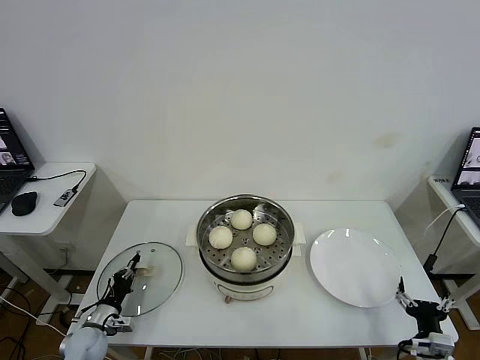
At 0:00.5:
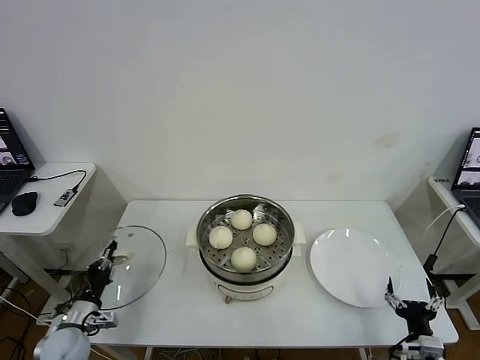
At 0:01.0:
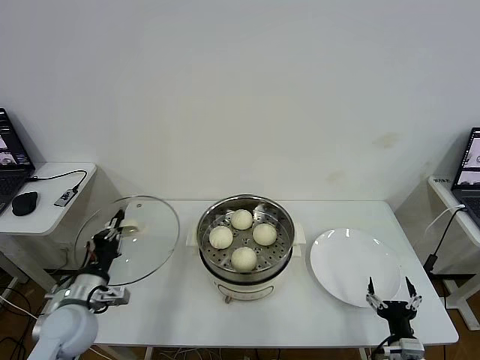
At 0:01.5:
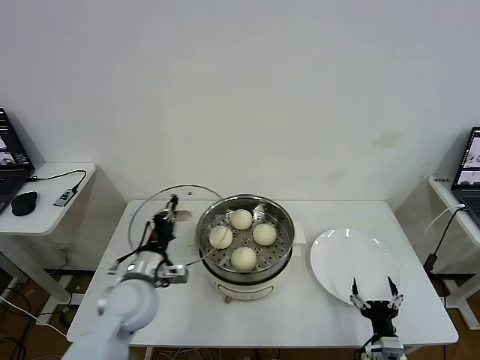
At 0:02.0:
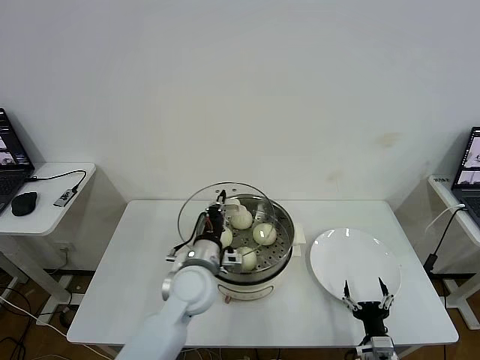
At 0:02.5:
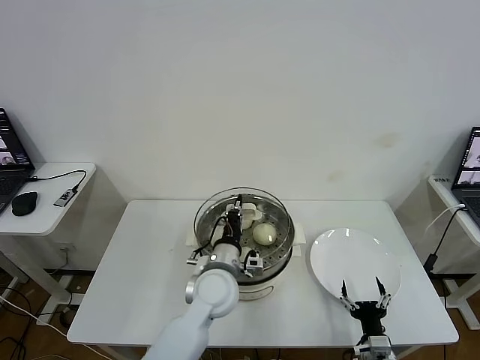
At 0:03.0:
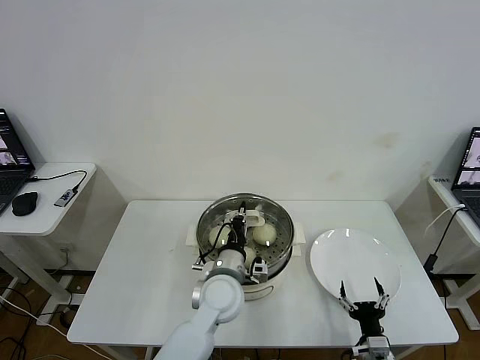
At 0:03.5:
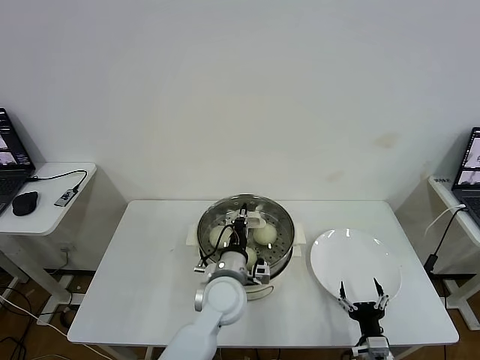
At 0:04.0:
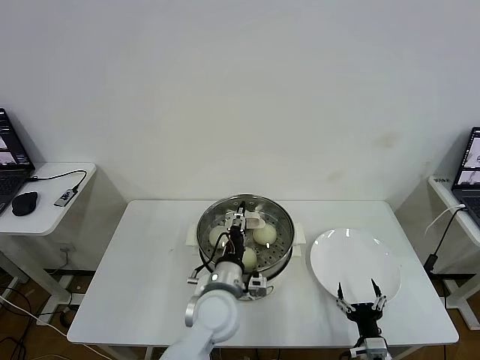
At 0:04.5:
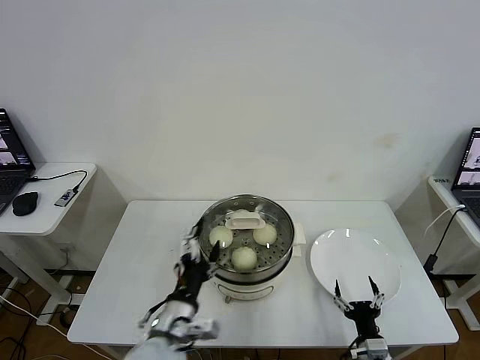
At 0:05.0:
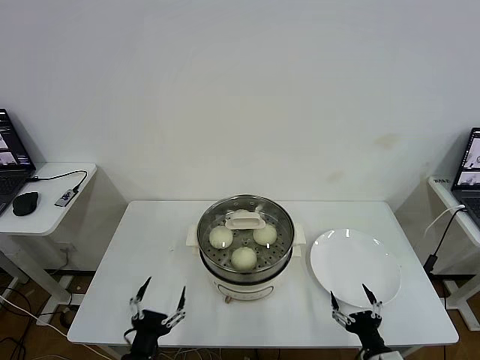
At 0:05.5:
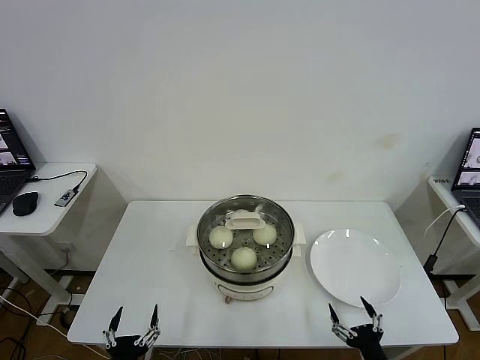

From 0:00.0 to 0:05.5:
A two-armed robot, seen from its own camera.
Task of the whole recording: take steamed baozi put them in steamer then cover it.
Step, from 0:00.5 to 0:03.5: Place the pot lid on the steamer with left gripper.
From 0:00.0 to 0:02.0: The right gripper heads to the left, covering some 10 cm. The left gripper is displaced to the right and upward by about 35 cm.
From 0:02.0 to 0:03.5: The left gripper goes approximately 5 cm to the right.
From 0:03.5 to 0:05.5: The left gripper shifts approximately 35 cm backward, to the left and downward, and opens. Meanwhile the right gripper travels backward by about 5 cm.

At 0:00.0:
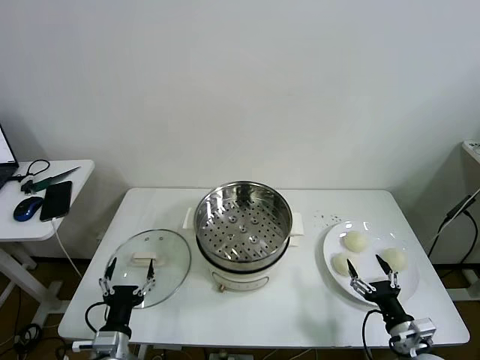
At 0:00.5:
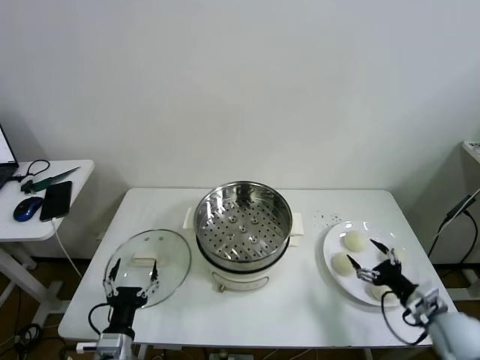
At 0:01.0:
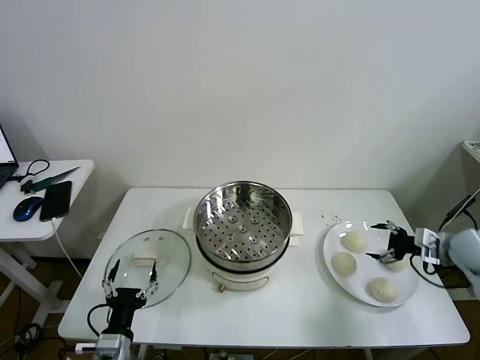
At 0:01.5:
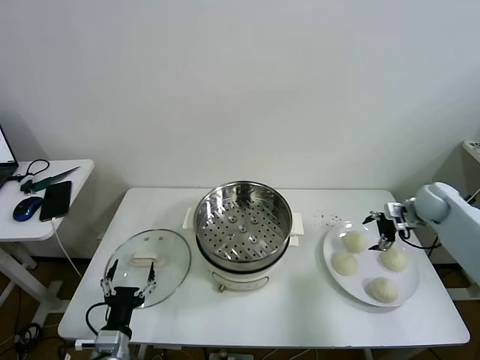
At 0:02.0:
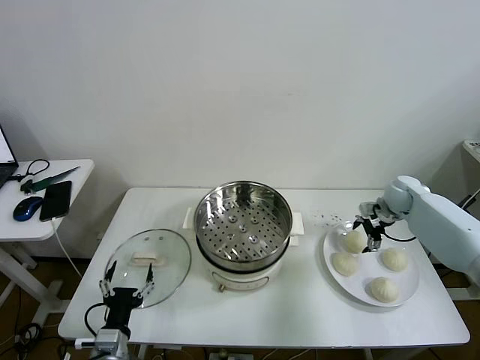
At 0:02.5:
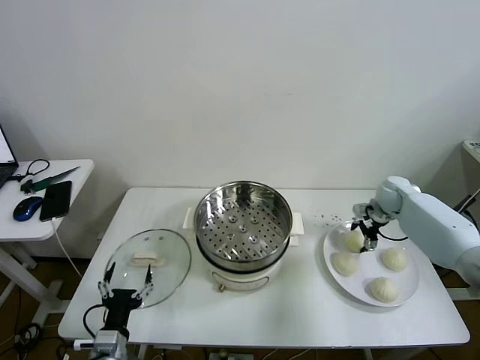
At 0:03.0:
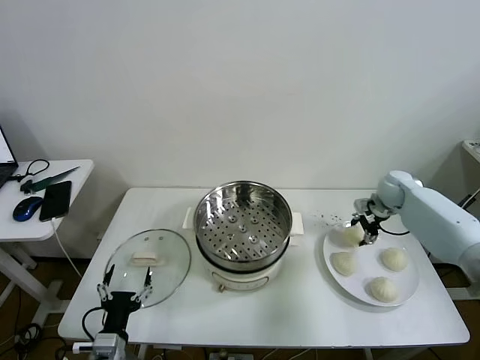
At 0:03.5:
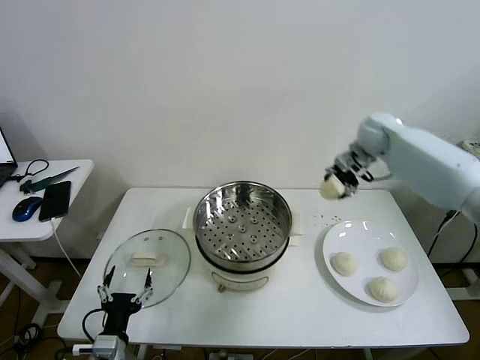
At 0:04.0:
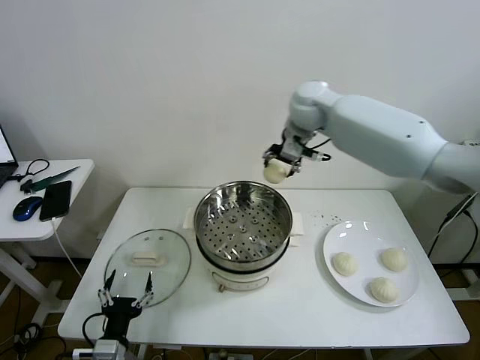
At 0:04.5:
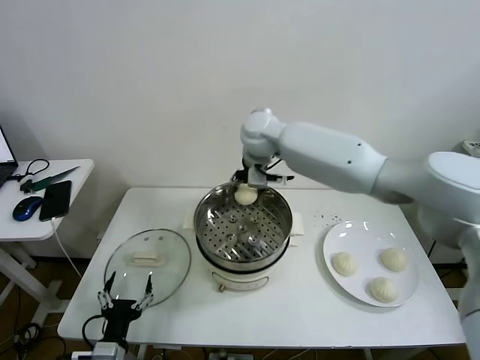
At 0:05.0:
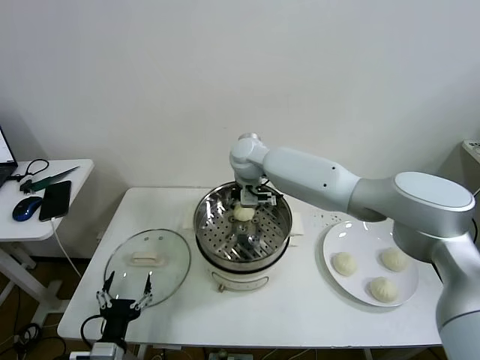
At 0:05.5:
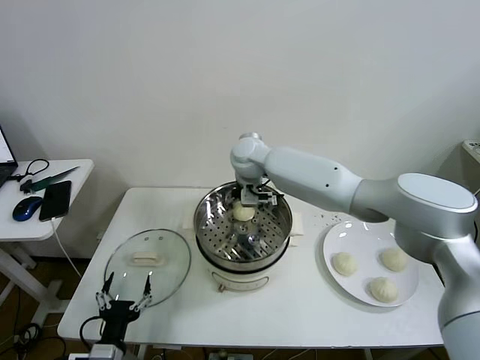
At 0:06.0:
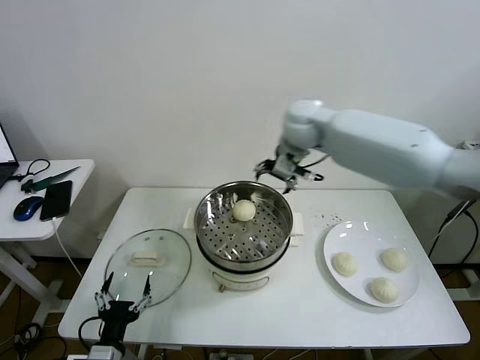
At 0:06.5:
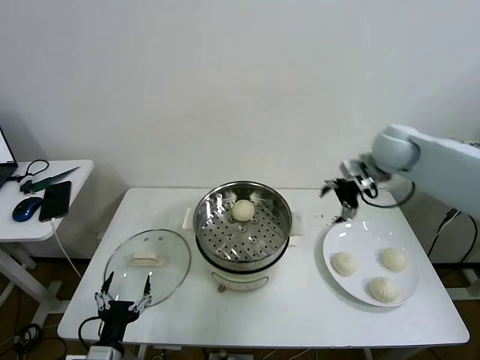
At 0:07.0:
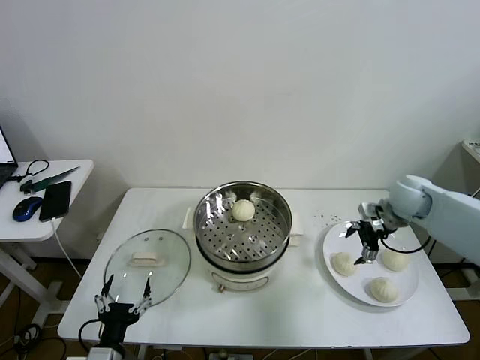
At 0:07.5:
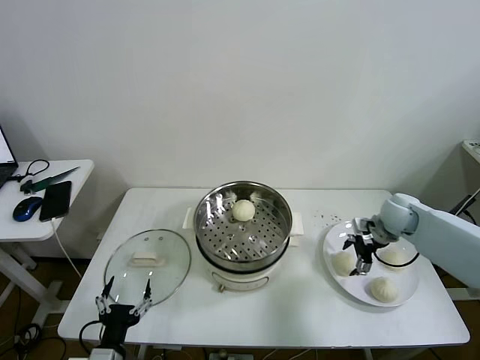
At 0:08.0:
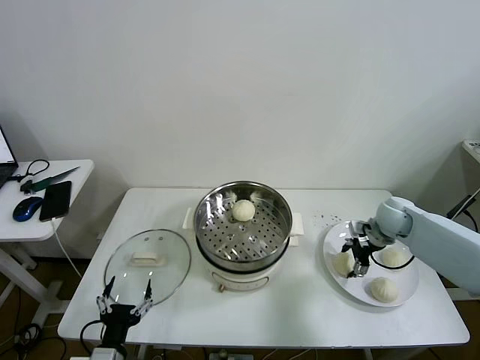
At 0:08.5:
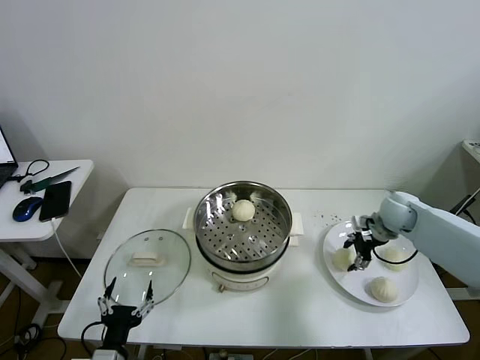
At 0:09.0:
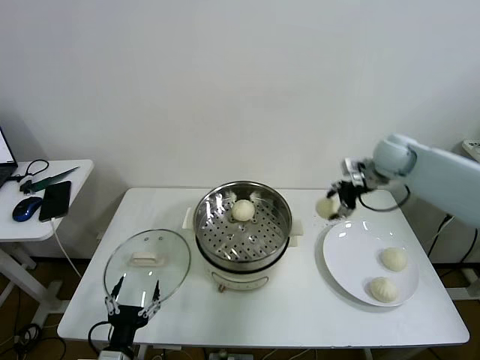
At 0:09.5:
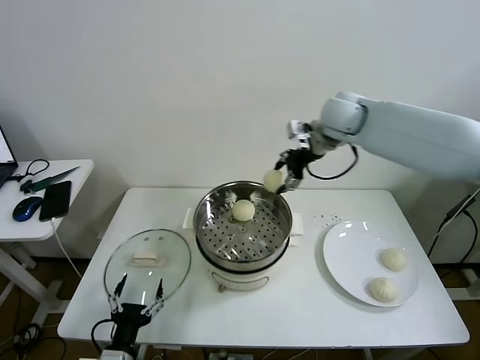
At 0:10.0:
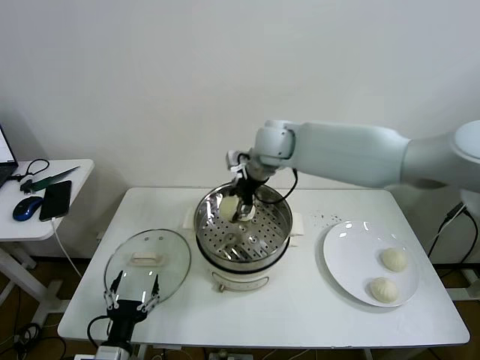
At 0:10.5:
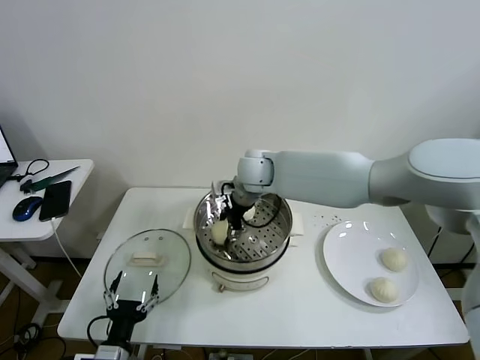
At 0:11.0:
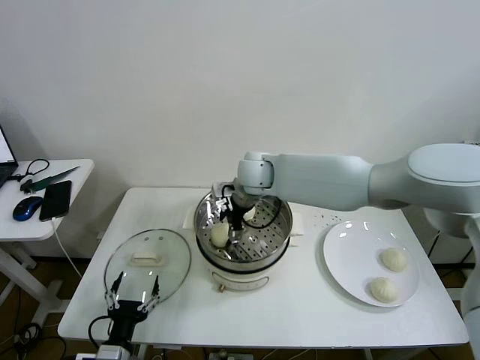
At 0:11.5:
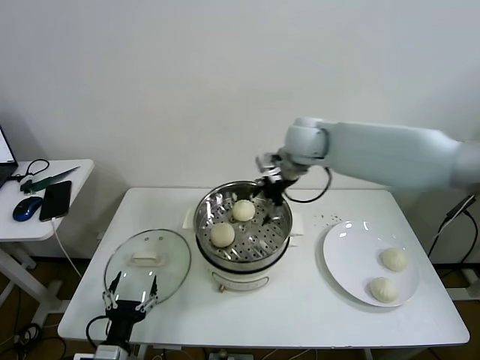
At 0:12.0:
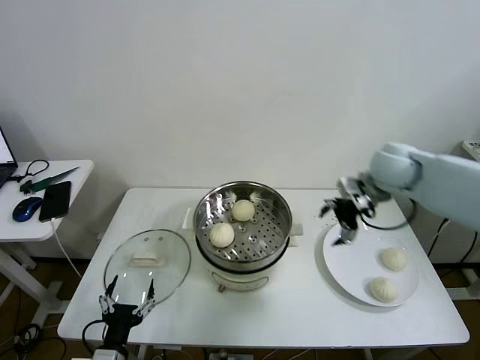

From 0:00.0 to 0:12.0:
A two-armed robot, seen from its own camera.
Task of the whole recording: take steamed baozi put them in steamer then cover it.
Step, from 0:00.0 to 0:02.5: Grasp the baozi in the plate with right gripper.
Step, from 0:03.0 to 0:05.0: Place the baozi on the steamer with right gripper.
Step, from 0:05.5 to 0:08.0: Grasp the baozi in the plate with right gripper.
Step, from 0:08.5 to 0:10.5: Place the baozi on the steamer with right gripper.
From 0:02.0 to 0:04.0: The right gripper moves to the left and upward, some 40 cm, and closes its fingers.
From 0:04.0 to 0:06.0: The right gripper travels to the right by roughly 5 cm, and opens up.
From 0:06.0 to 0:08.0: The right gripper shifts approximately 35 cm downward and to the right, and closes.
From 0:08.0 to 0:10.0: The right gripper goes approximately 40 cm to the left and upward.
From 0:10.0 to 0:12.0: The right gripper goes some 25 cm to the right, and opens its fingers.

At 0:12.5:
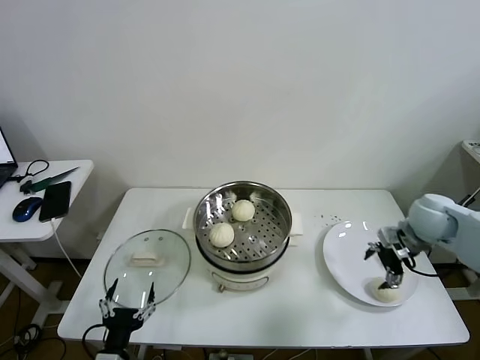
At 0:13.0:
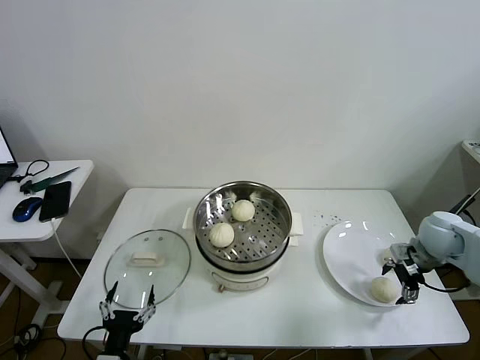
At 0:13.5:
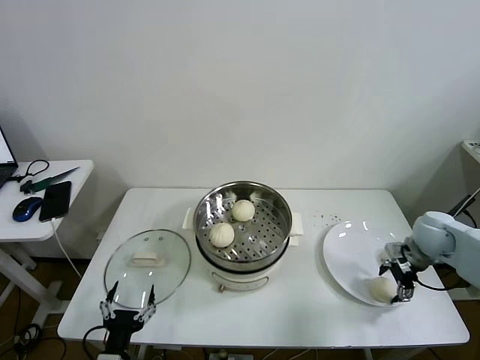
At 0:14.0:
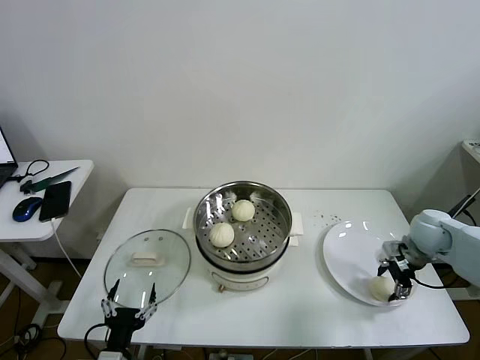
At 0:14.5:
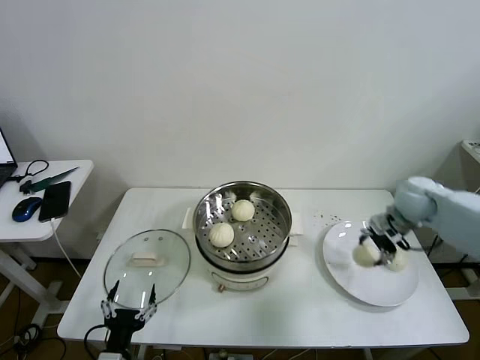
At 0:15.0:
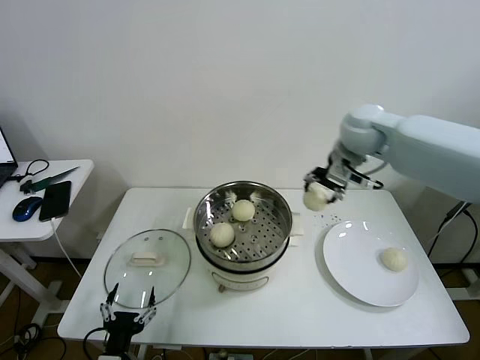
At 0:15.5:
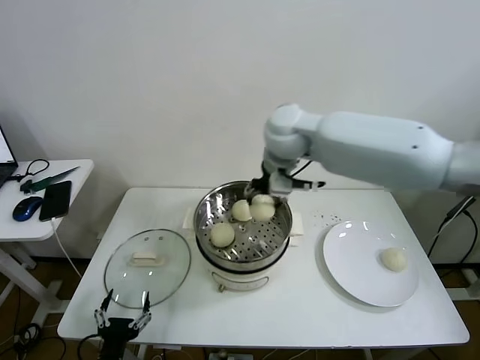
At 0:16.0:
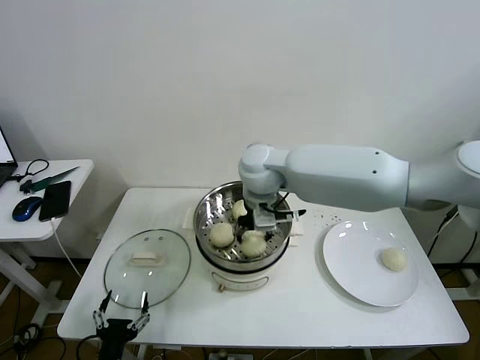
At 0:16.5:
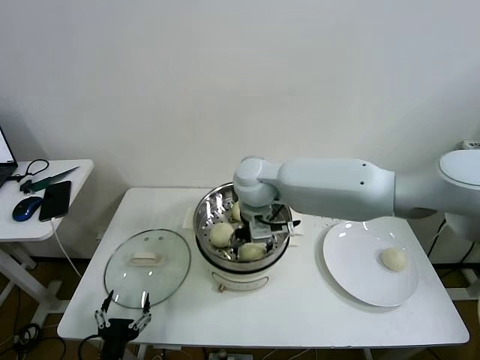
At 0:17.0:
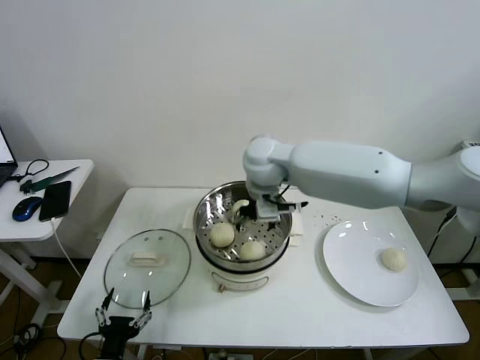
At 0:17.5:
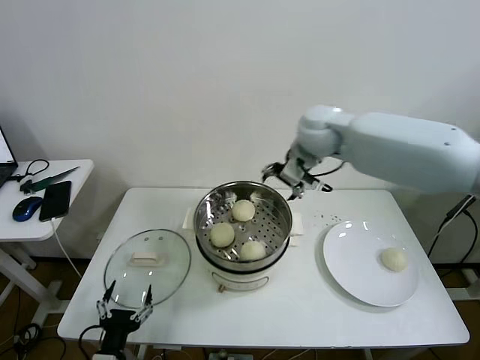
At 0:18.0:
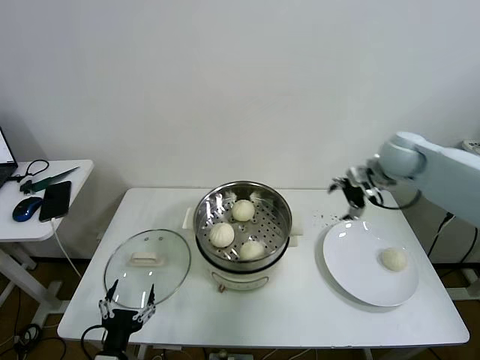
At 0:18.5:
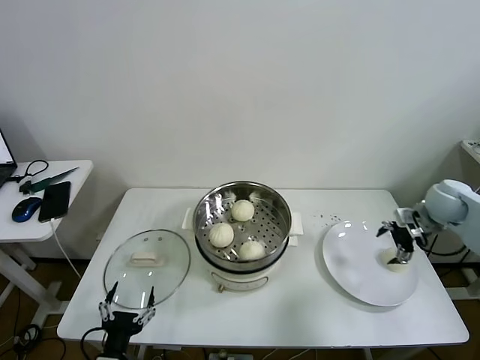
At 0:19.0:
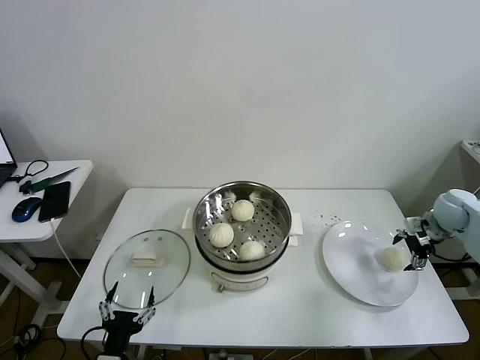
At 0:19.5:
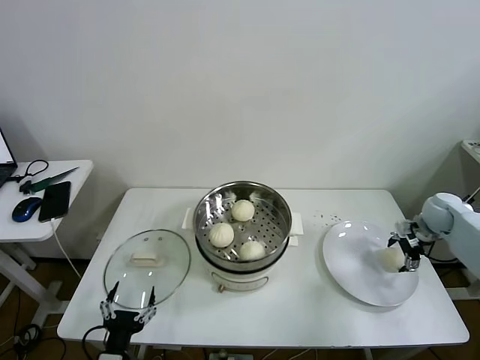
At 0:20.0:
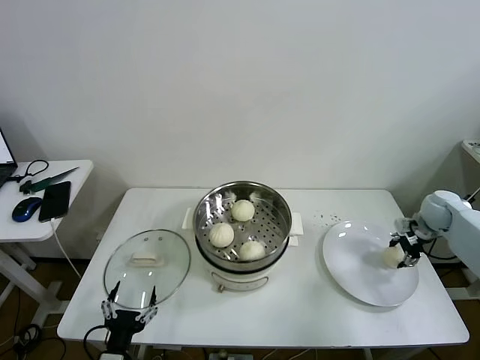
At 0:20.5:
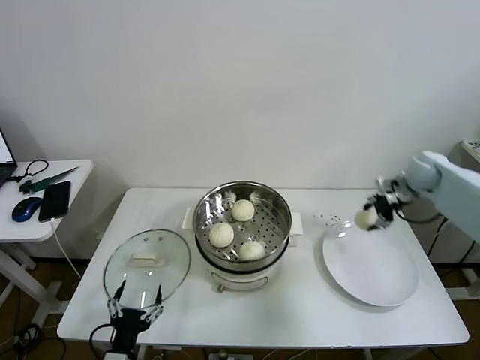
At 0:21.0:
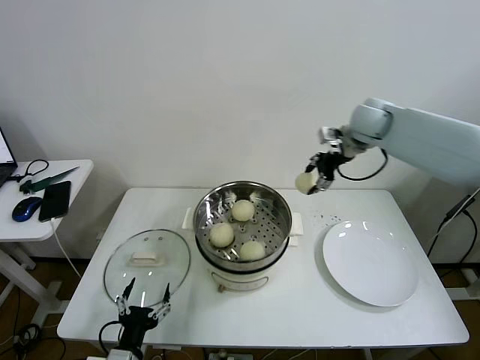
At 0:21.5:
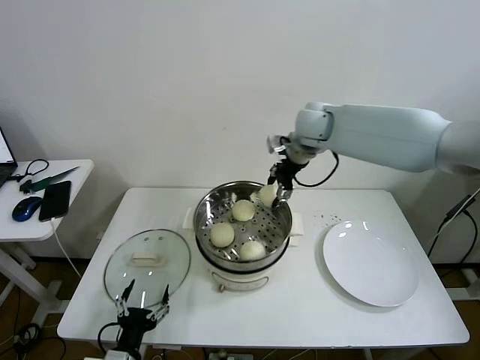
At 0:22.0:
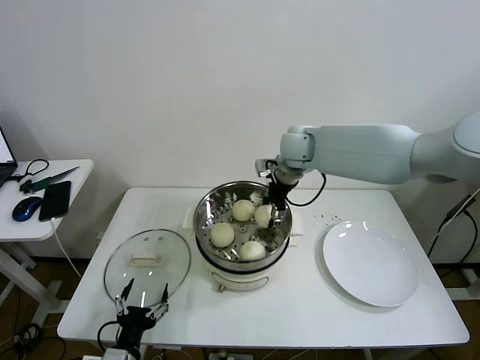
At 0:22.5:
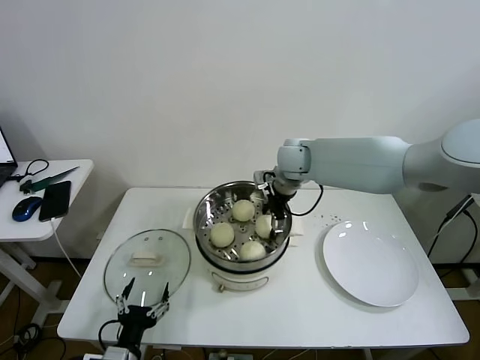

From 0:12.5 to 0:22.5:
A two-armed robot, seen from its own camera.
Task of the whole recording: take steamed baozi put them in steamer then cover it.
Step, from 0:14.5 to 0:16.5: Place the baozi on the steamer with right gripper.
Step, from 0:17.0 to 0:19.5: Grasp the baozi in the plate with right gripper.
From 0:12.5 to 0:14.5: The right gripper travels forward by approximately 5 cm, and closes up.
From 0:14.5 to 0:16.5: The right gripper heads to the left, covering approximately 35 cm, and opens its fingers.
From 0:16.5 to 0:18.5: The right gripper is displaced to the right by about 50 cm.
From 0:18.5 to 0:20.5: The right gripper shifts roughly 10 cm forward, and closes up.
From 0:20.5 to 0:22.5: The right gripper shifts about 30 cm to the left, and opens its fingers.
